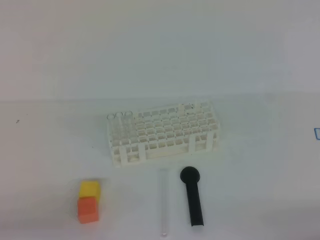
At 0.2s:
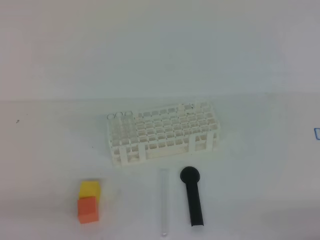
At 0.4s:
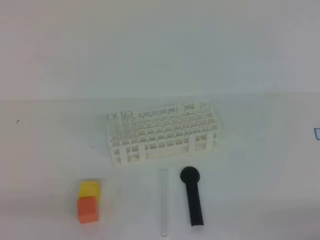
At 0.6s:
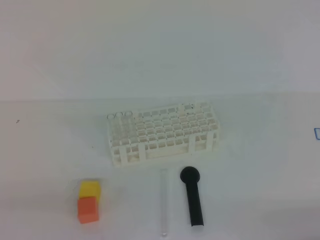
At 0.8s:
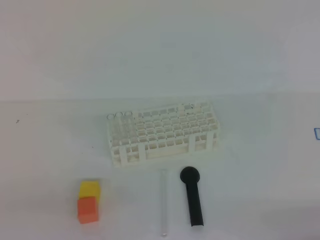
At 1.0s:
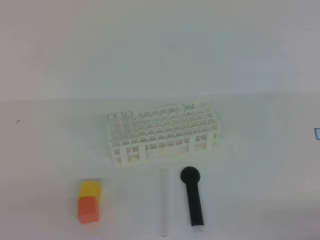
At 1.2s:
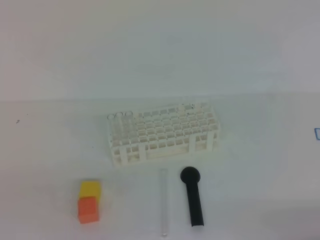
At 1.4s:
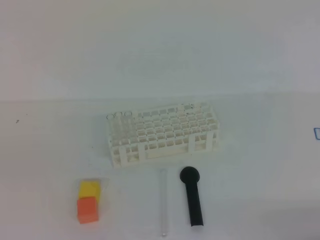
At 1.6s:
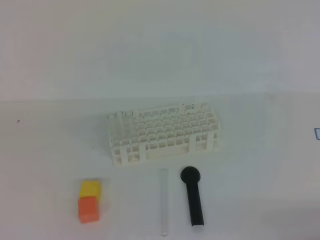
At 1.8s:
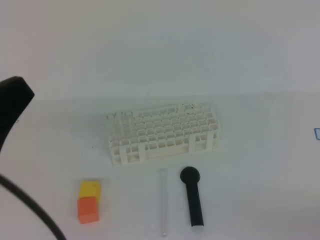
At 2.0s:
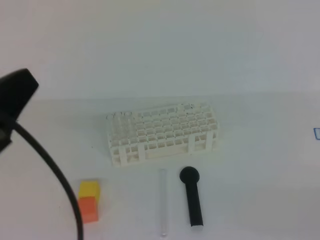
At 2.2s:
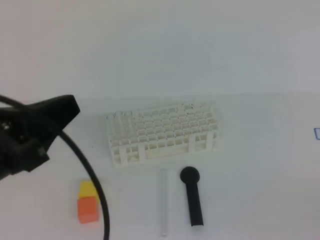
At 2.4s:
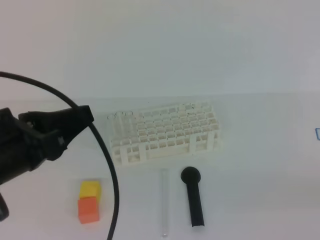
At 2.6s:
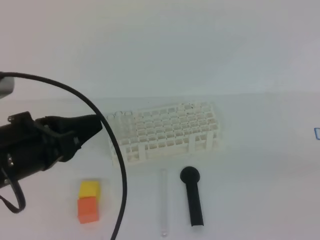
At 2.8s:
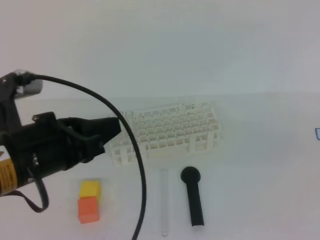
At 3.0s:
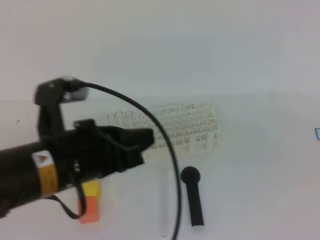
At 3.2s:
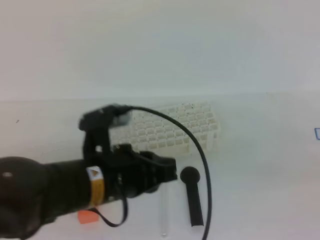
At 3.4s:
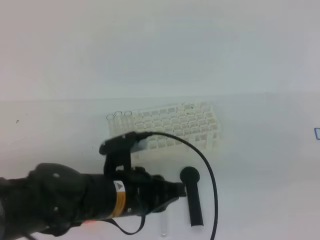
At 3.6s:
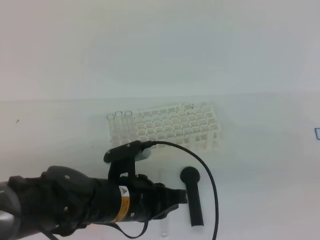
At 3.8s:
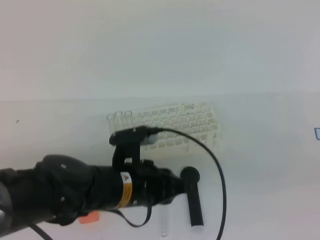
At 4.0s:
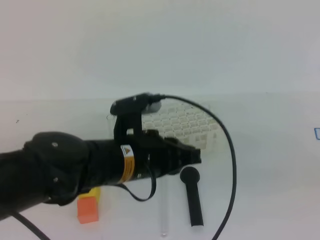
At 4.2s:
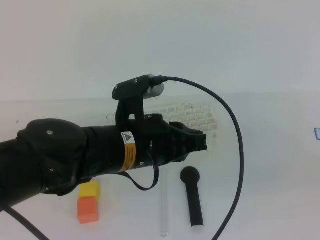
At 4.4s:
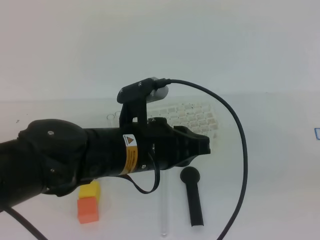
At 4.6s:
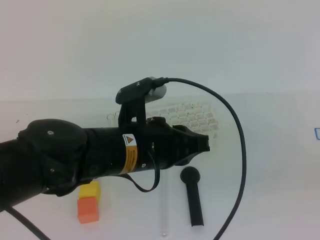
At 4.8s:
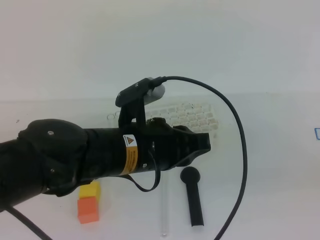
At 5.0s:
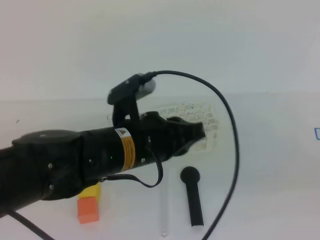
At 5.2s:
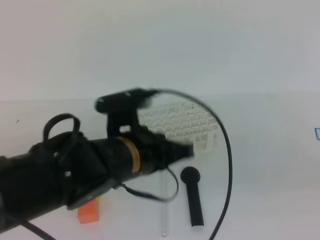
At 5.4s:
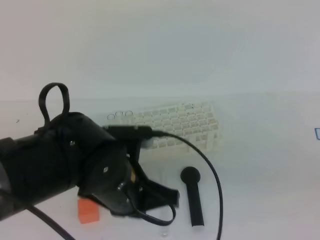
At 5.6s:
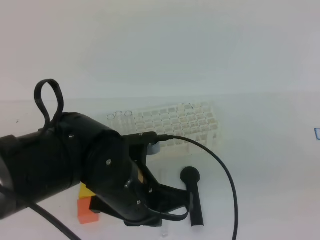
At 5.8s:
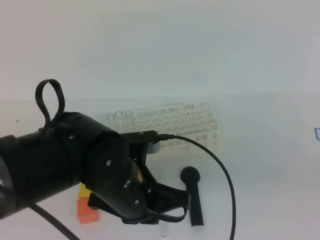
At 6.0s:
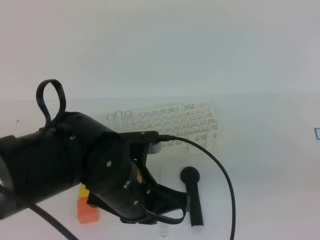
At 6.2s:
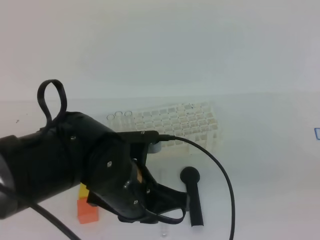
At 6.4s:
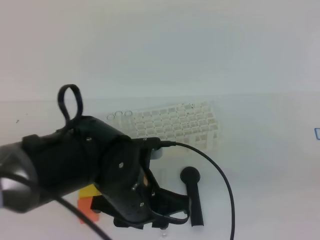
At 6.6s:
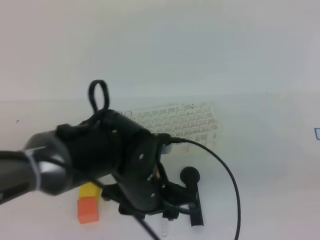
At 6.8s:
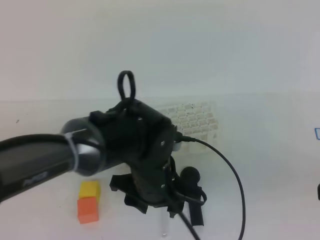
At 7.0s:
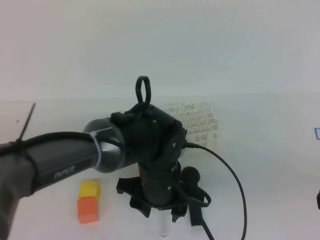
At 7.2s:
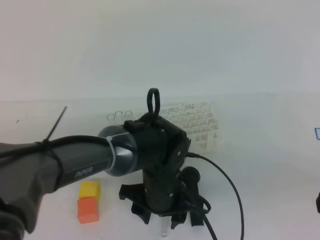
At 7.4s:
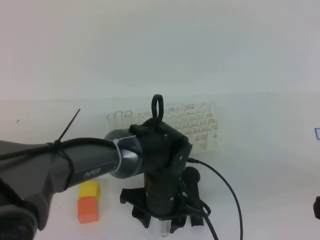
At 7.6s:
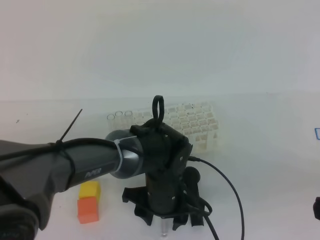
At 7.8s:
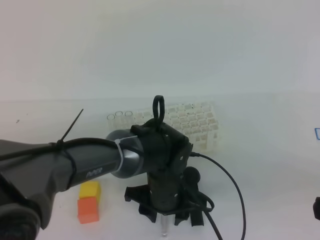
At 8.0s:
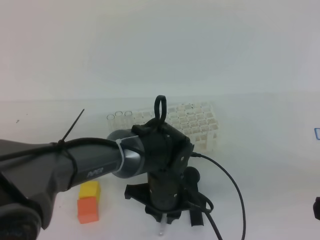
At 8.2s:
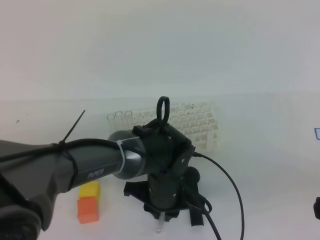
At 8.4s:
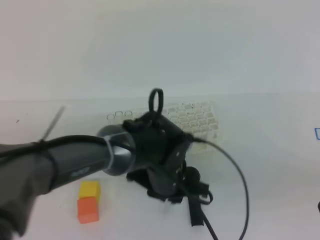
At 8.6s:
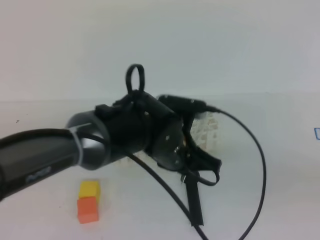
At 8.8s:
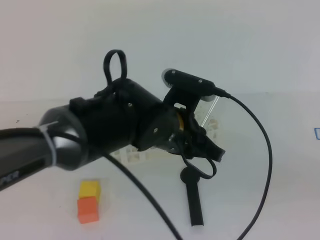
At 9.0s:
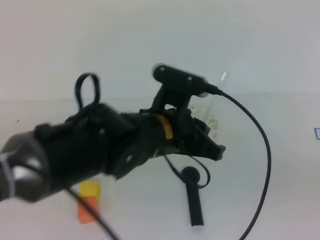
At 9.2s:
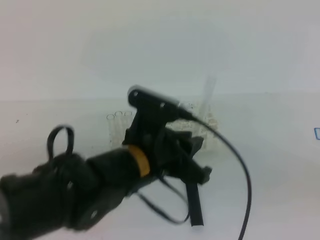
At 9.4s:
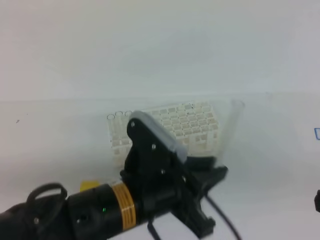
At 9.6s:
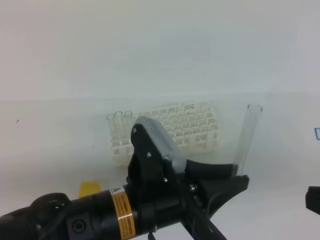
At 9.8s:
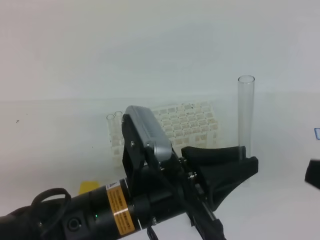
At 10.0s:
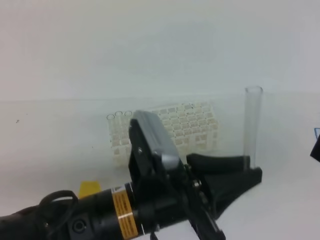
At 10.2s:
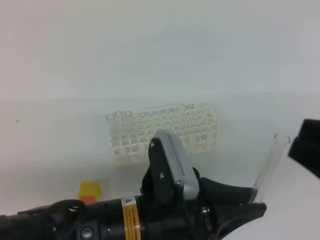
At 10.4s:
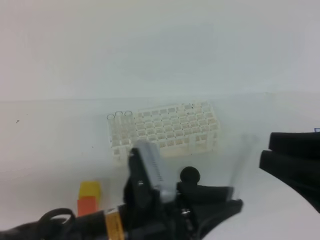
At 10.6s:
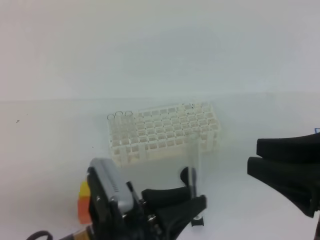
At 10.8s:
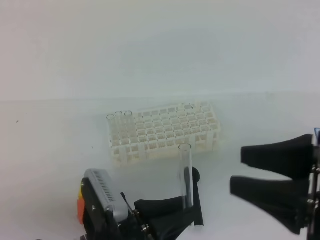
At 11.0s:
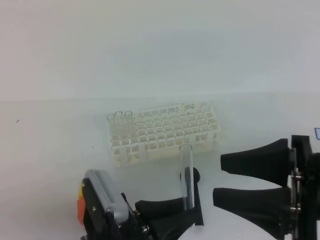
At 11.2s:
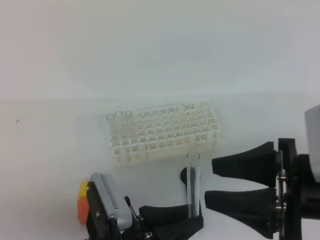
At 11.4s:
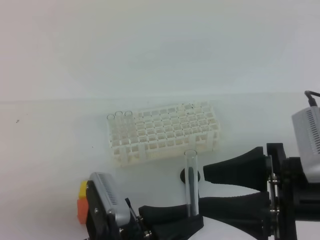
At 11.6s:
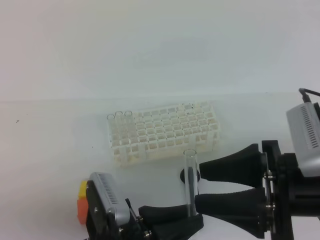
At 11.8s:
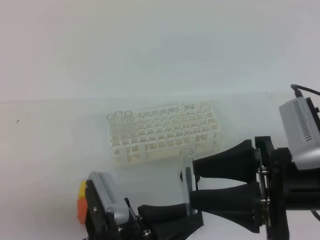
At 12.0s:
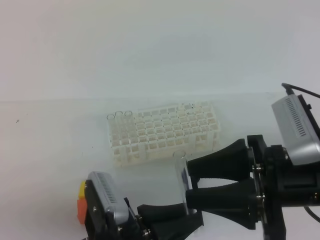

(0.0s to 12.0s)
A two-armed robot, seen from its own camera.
1.6s - 3.0s: The left gripper heads forward, to the right and downward, covering roughly 20 cm; the right gripper shifts some 15 cm upward.
3.0s - 4.4s: The left gripper shifts approximately 10 cm to the right, and moves approximately 10 cm downward and comes back, while the right gripper ends up roughly 5 cm from where it was.
6.0s - 7.6s: The left gripper is displaced downward, forward and to the right by approximately 15 cm, and opens its fingers.
7.6s - 9.0s: The left gripper goes roughly 10 cm upward, and closes up.
9.0s - 10.4s: The right gripper ends up some 5 cm from where it was, and opens up. The left gripper shifts roughly 10 cm backward.
10.4s - 12.0s: The right gripper travels to the left, downward and forward by about 10 cm, and opens; the left gripper moves about 5 cm.

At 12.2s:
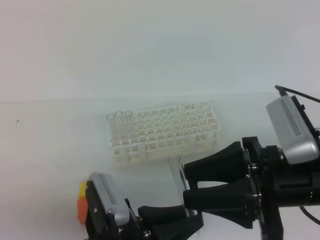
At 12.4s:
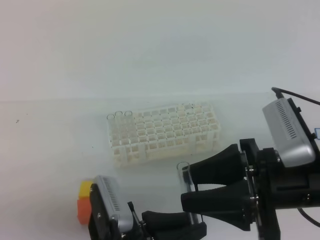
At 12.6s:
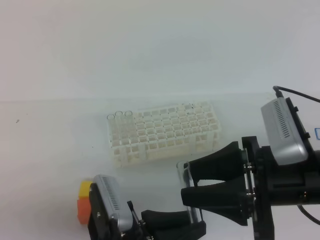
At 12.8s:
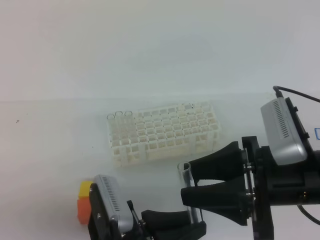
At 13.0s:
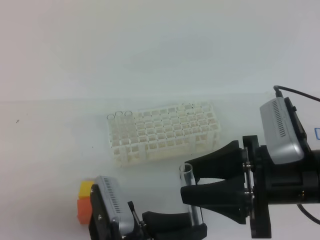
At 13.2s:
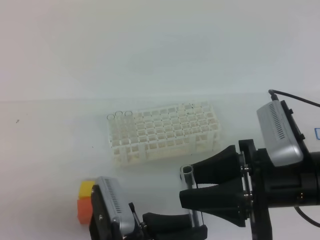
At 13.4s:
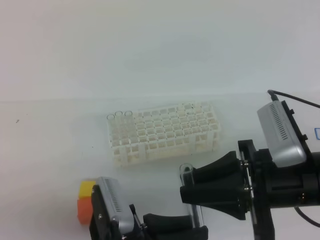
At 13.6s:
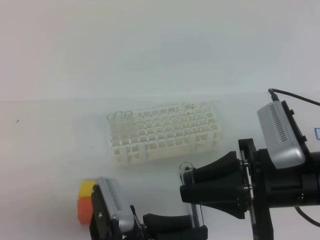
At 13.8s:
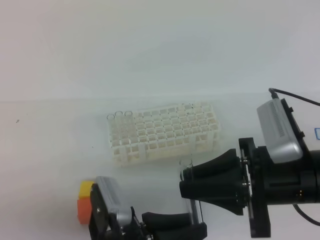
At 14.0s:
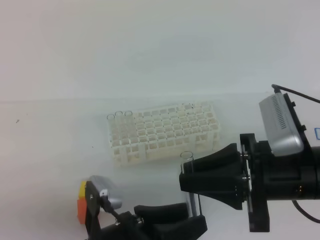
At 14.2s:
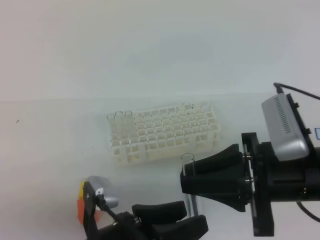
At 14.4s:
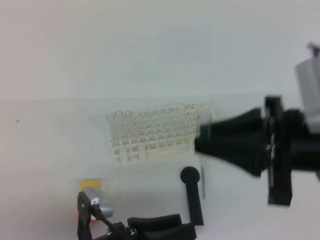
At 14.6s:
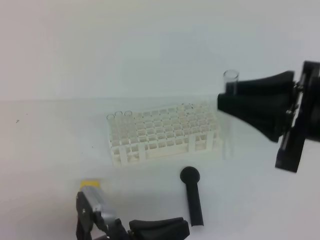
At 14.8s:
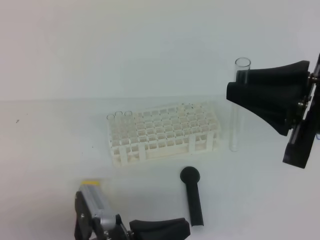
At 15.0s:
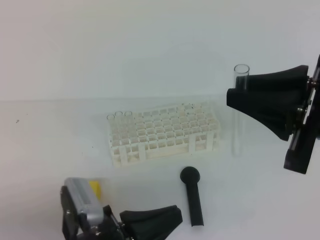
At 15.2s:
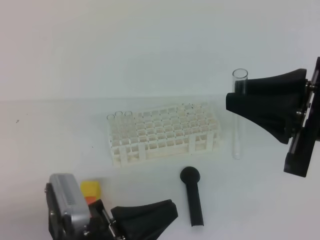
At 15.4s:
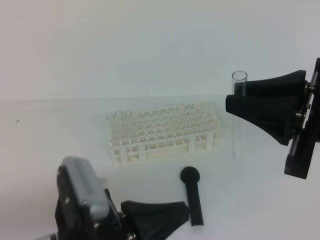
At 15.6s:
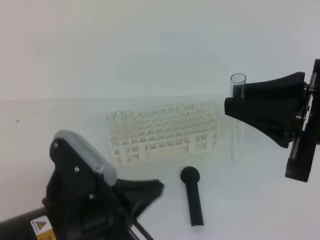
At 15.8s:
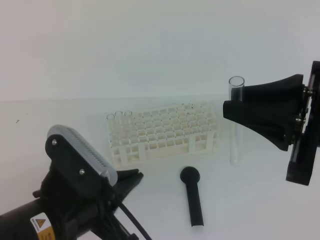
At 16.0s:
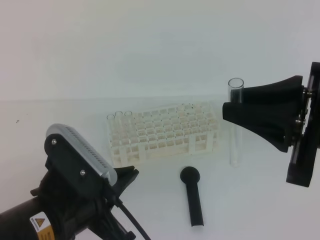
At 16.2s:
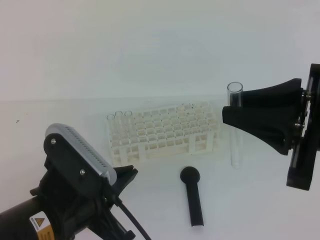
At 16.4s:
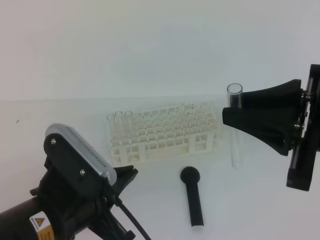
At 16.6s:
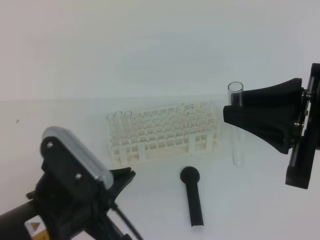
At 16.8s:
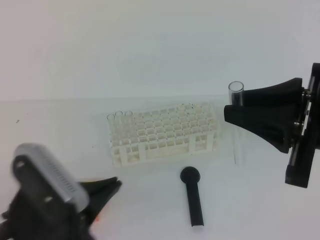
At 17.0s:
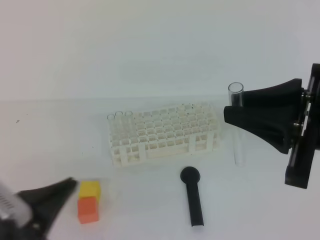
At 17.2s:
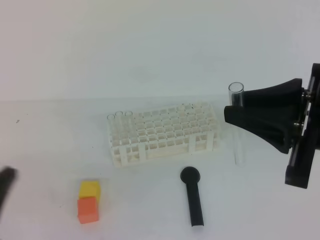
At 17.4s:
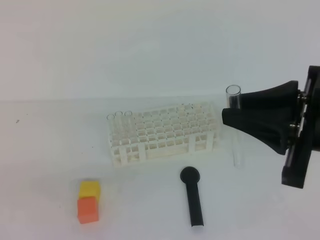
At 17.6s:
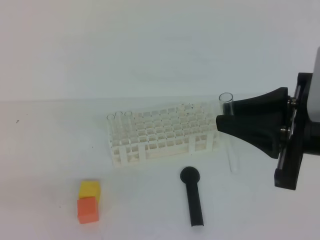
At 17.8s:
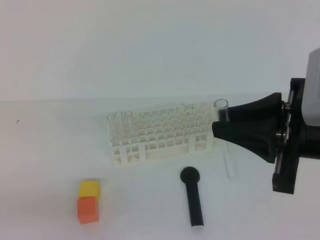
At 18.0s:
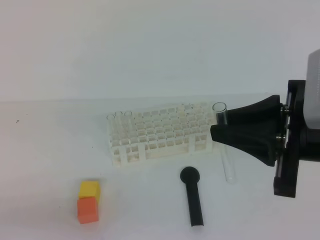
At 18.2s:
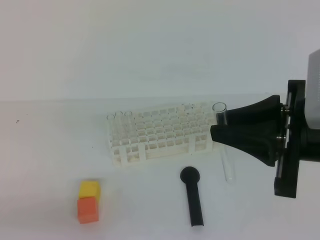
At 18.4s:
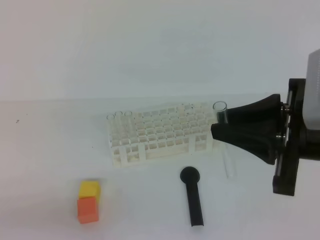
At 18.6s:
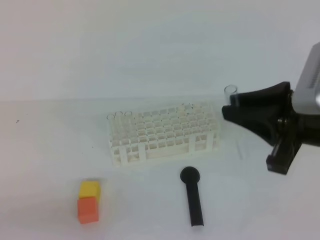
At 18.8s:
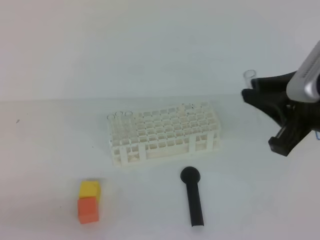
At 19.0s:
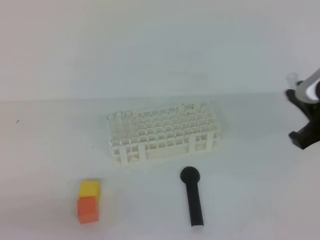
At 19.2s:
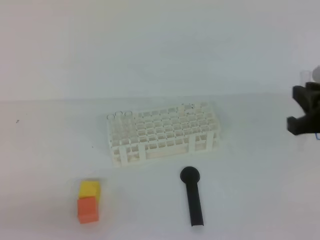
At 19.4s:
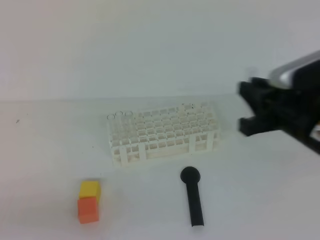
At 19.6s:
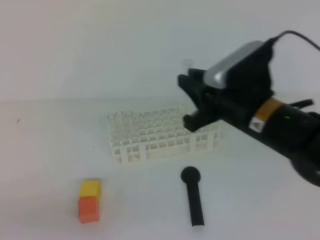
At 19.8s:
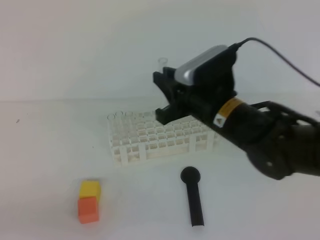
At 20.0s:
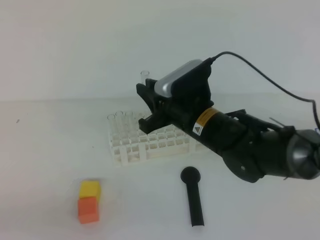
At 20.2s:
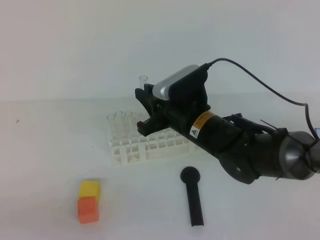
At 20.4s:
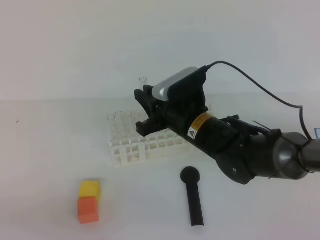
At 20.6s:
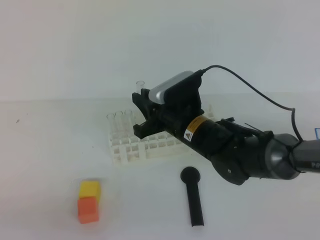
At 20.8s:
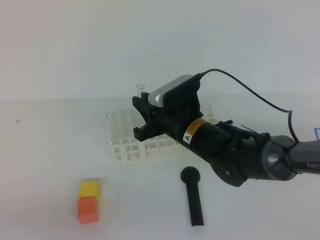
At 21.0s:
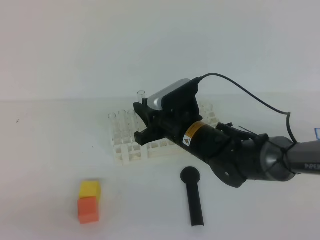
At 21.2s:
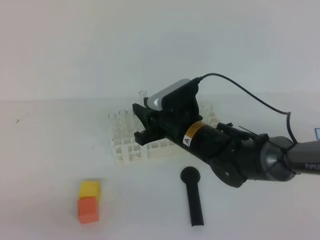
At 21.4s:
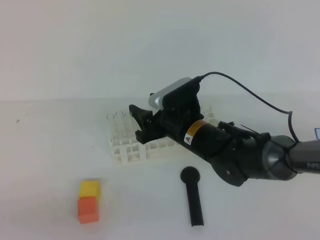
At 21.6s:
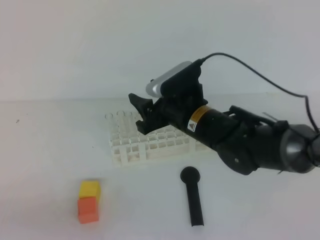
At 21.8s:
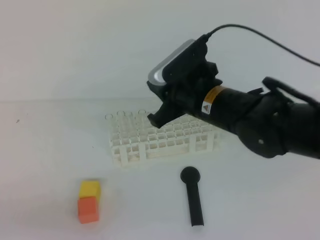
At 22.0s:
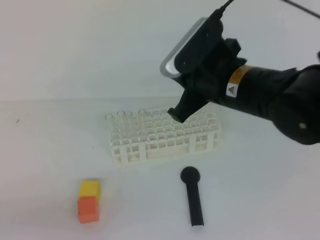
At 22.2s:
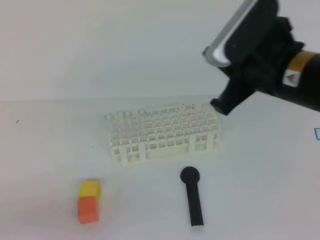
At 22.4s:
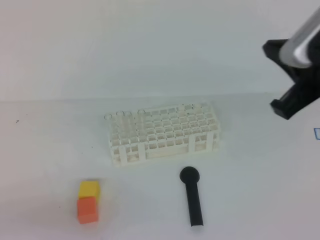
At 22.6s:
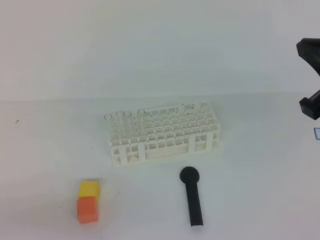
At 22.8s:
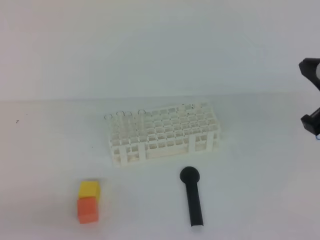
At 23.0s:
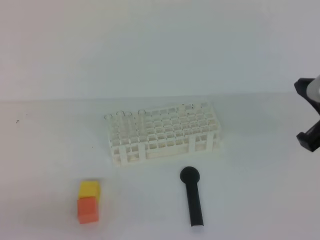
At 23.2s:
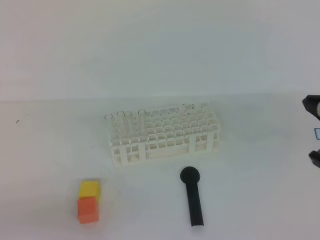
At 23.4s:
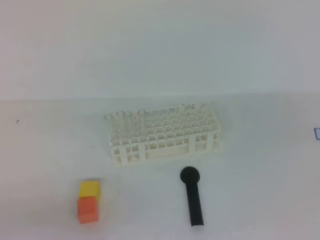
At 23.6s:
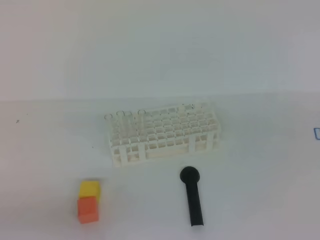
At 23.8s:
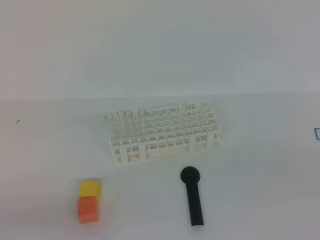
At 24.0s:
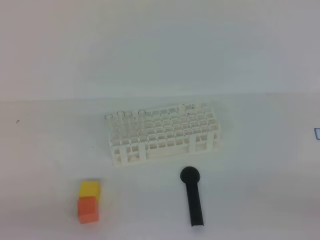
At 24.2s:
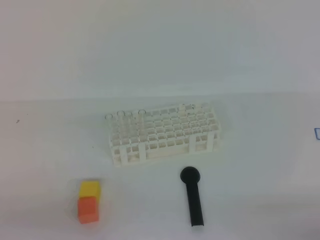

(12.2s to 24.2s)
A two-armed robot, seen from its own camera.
12.2s - 13.8s: The right gripper closes up.
13.8s - 15.2s: The right gripper heads upward, covering about 10 cm, while the left gripper closes up.
15.2s - 16.6s: The left gripper moves roughly 5 cm.
16.6s - 18.2s: The left gripper moves to the left, backward and downward, some 15 cm.
18.2s - 19.8s: The right gripper moves forward, to the left and downward, roughly 15 cm.
19.8s - 21.2s: The right gripper is displaced downward by approximately 10 cm.
21.2s - 22.6s: The right gripper is displaced upward, to the right and backward by some 30 cm, and closes.
22.6s - 24.2s: The right gripper heads backward, downward and to the right, covering roughly 25 cm.
